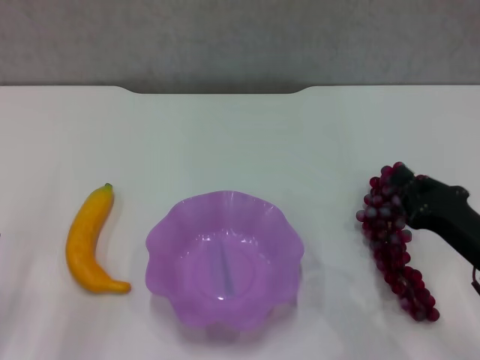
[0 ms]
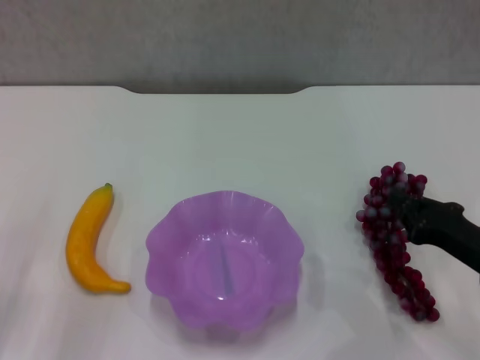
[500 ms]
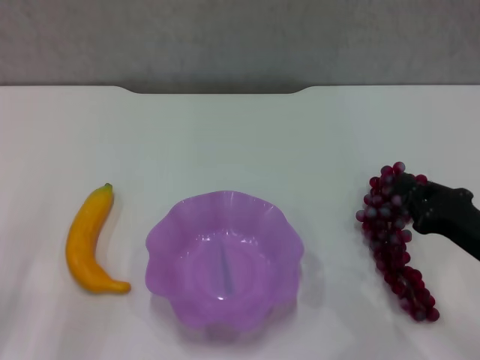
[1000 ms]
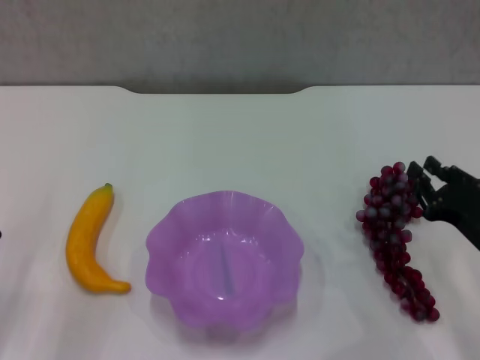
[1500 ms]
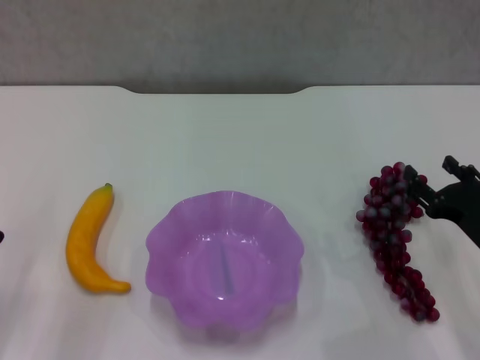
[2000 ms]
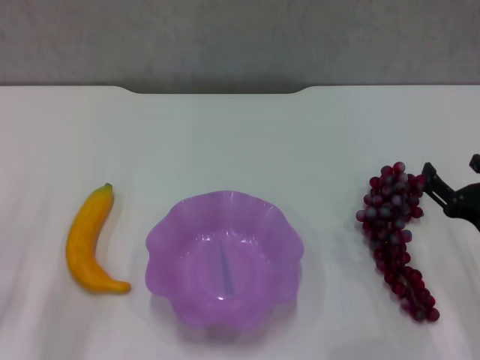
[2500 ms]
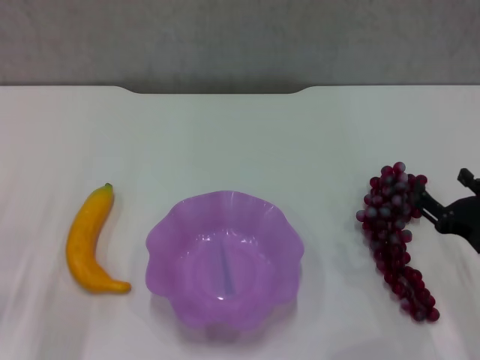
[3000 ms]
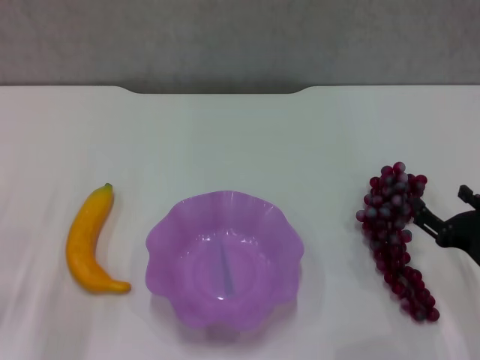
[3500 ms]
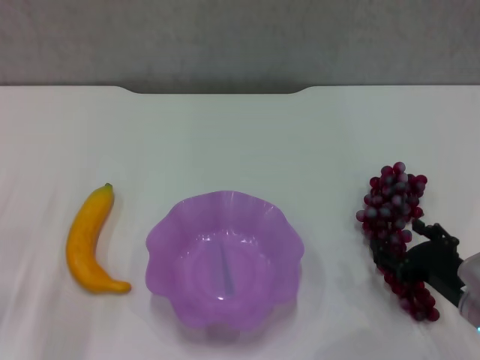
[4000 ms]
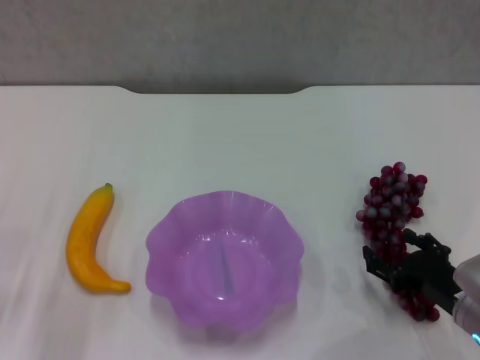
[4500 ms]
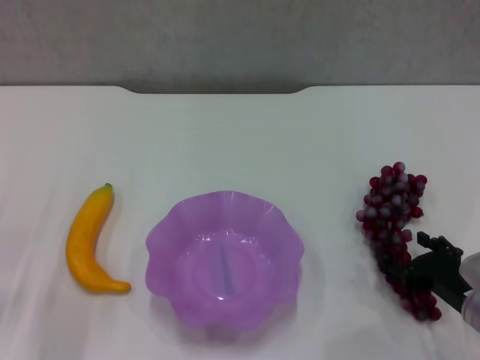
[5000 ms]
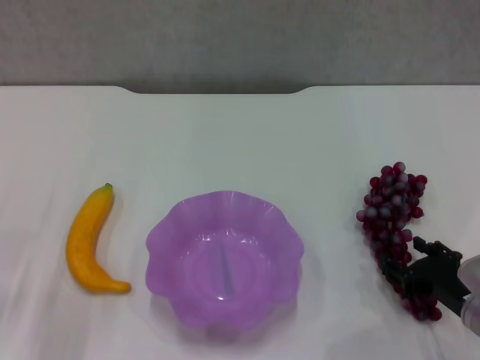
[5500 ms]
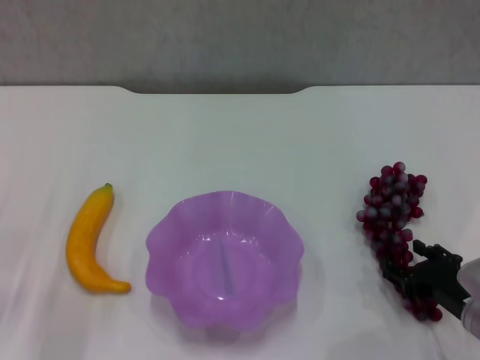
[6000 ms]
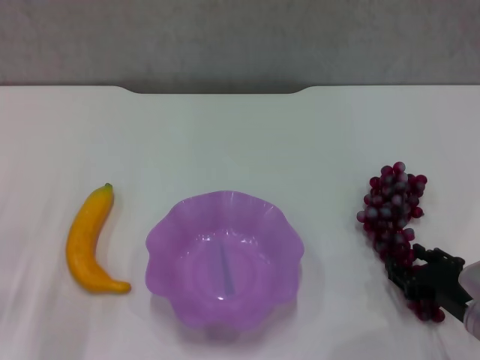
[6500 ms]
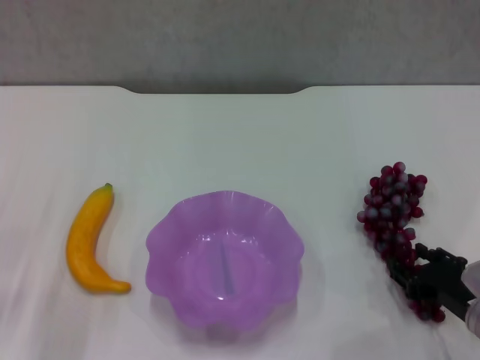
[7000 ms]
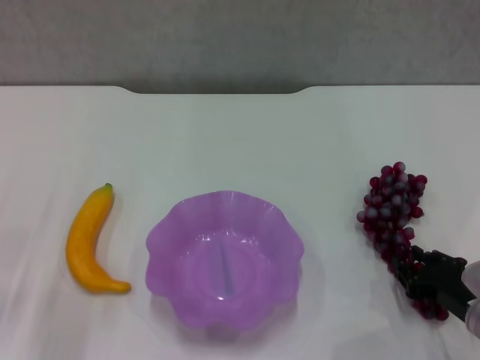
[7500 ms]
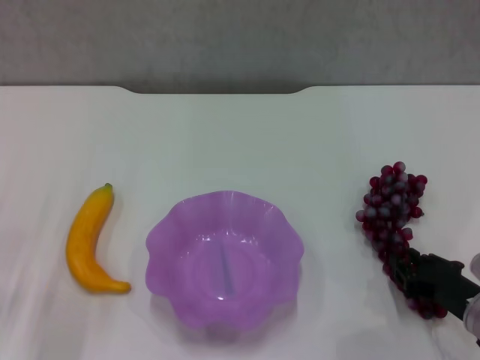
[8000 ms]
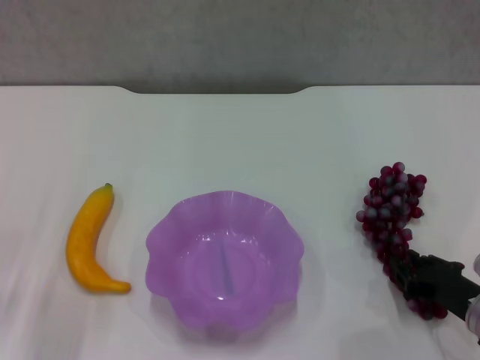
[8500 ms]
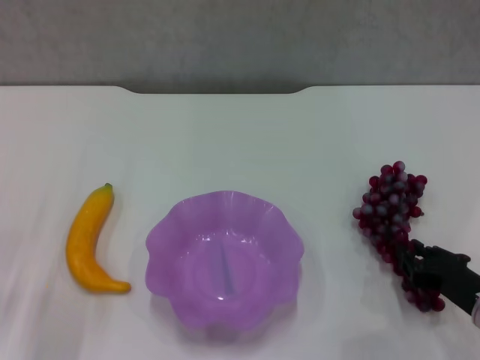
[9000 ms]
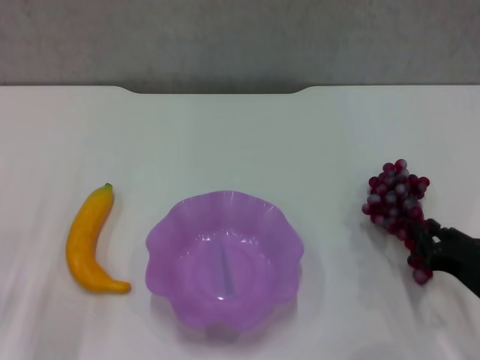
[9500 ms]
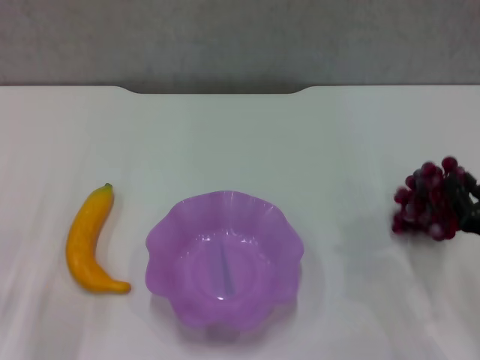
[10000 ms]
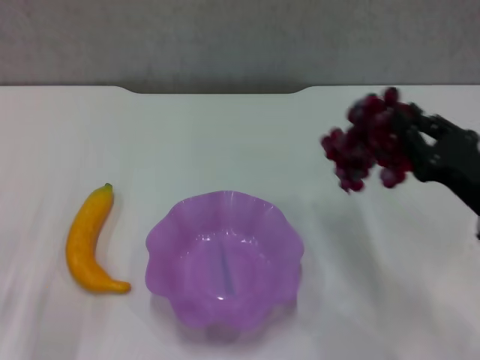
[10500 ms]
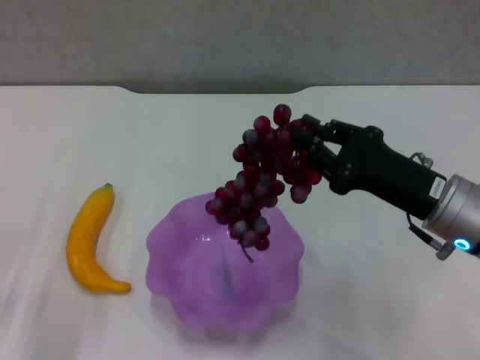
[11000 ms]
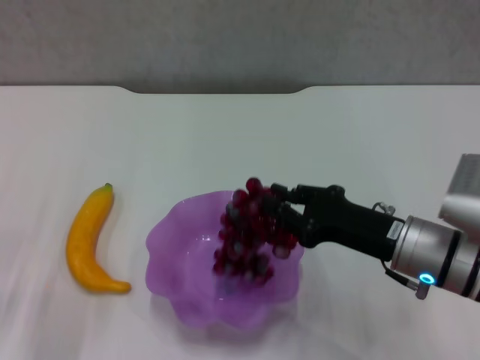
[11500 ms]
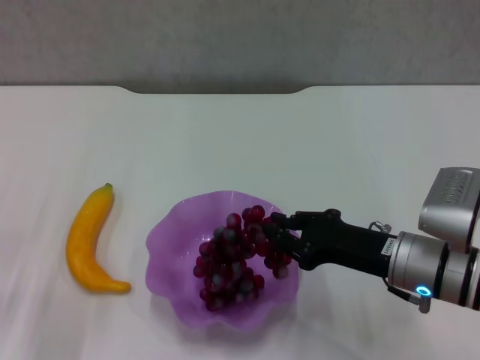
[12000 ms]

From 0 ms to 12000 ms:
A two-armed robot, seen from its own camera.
Step, from 0 ms to 8000 ms: Grasp the grape with right gripper.
From 0 ms to 2000 ms: The right gripper opens up.
From 2000 ms to 4000 ms: The right gripper opens up.
From 4000 ms to 6000 ms: There are only small adjustments of the grippers.
From 6000 ms to 8000 ms: The right gripper closes.
From 8000 ms to 10000 ms: The right gripper moves approximately 5 cm.
From 10000 ms to 12000 ms: The right gripper moves to the left, approximately 10 cm.

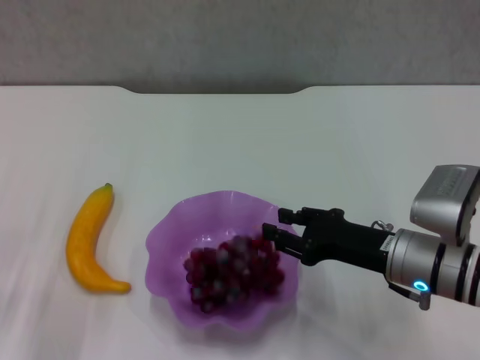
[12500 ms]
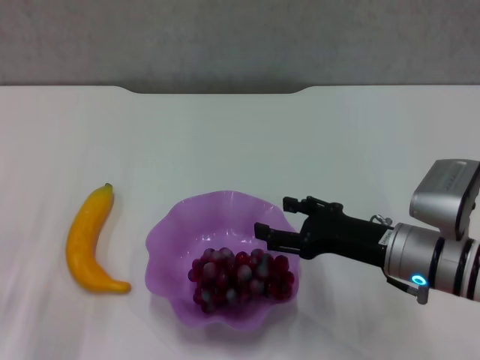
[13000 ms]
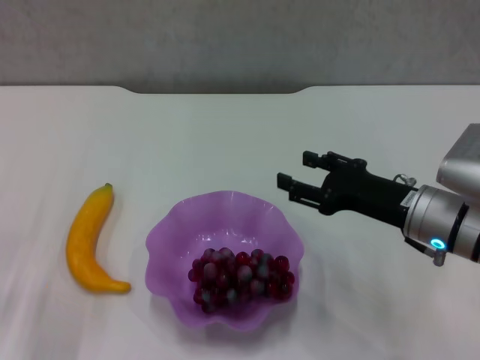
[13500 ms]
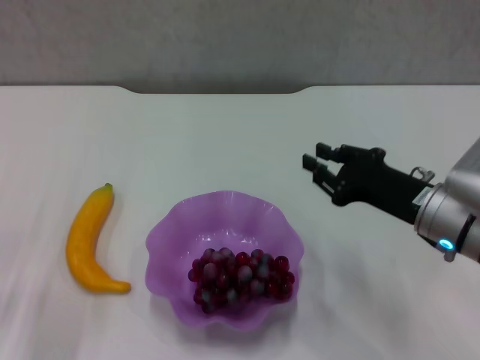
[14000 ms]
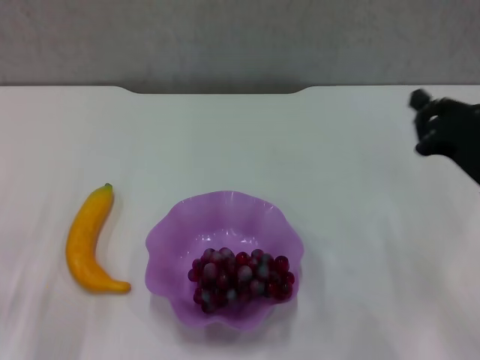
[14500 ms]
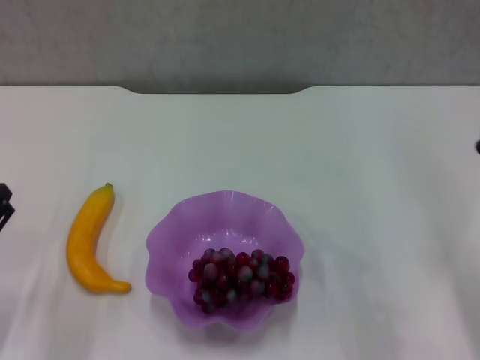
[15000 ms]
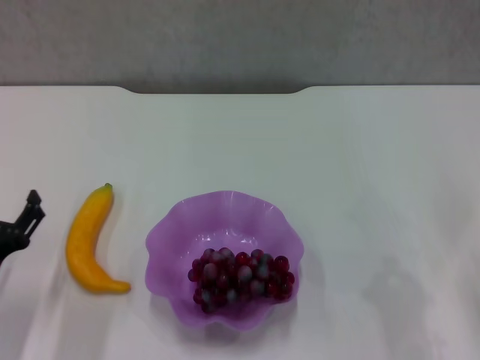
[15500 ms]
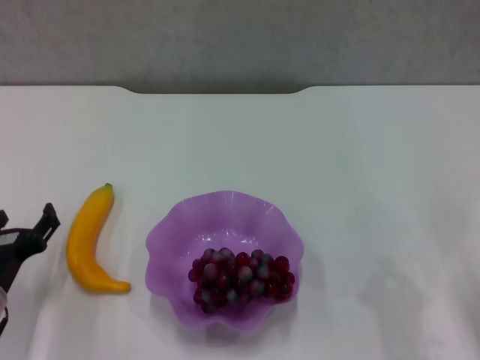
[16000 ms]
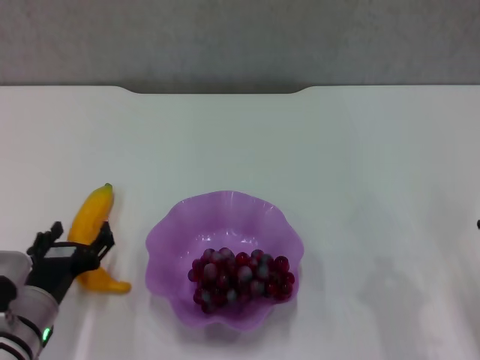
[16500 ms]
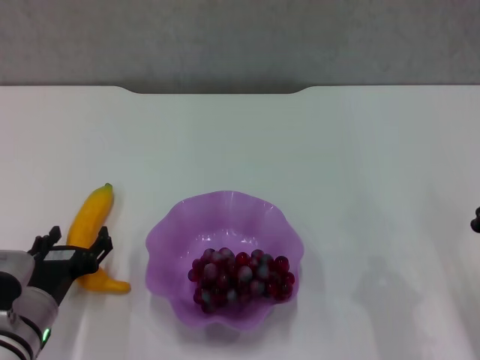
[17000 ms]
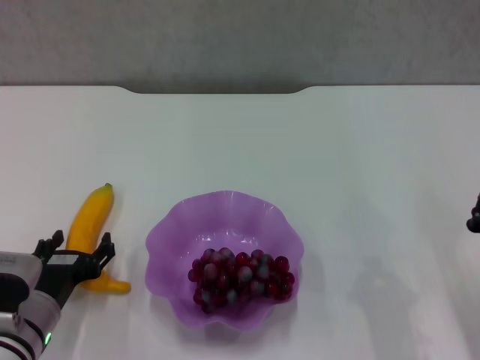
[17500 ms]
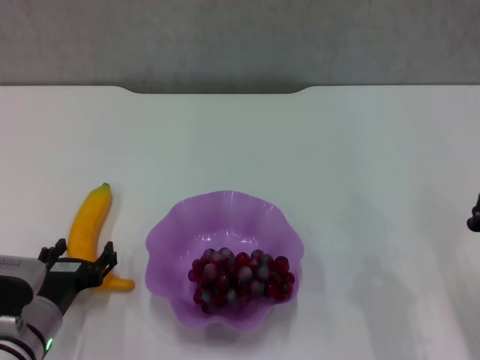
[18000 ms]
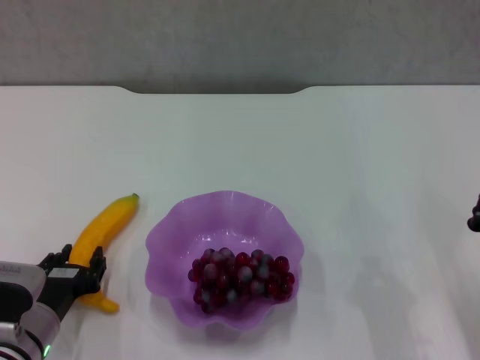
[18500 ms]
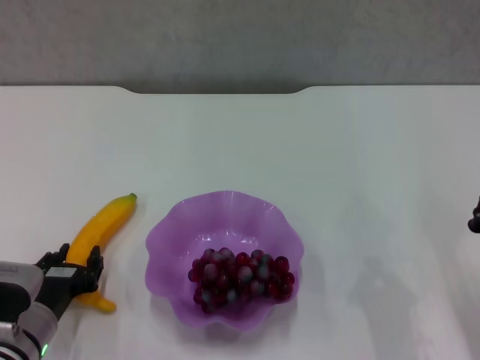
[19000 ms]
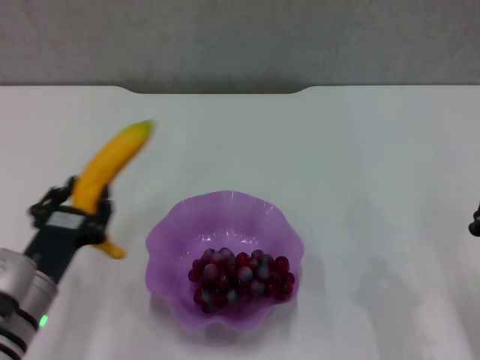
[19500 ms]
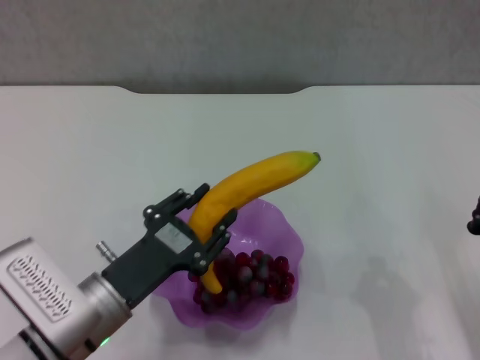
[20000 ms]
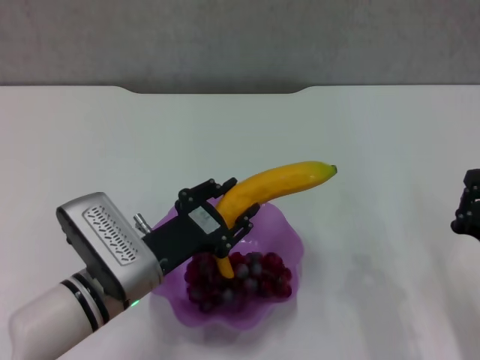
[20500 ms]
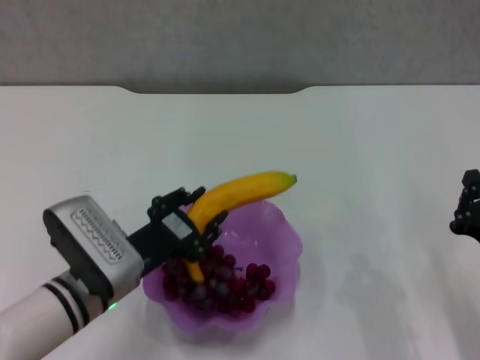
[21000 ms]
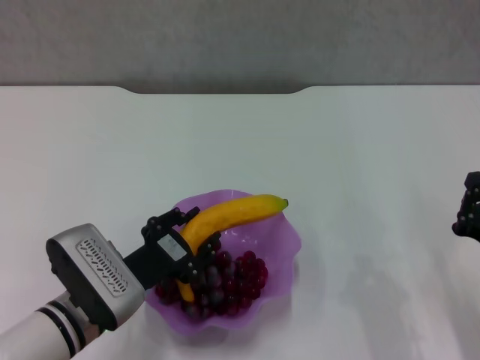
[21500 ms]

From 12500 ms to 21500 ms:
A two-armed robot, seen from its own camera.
Step, from 13000 ms to 18500 ms: Grasp the banana with left gripper.
From 12500 ms to 14500 ms: The right gripper shifts some 10 cm to the right and upward, and opens, then closes again.
From 14500 ms to 17000 ms: The right gripper is displaced backward and downward by roughly 10 cm. Meanwhile the left gripper shifts some 10 cm to the right.
From 17000 ms to 19500 ms: The left gripper closes up.
From 19500 ms to 21500 ms: The left gripper moves to the right, roughly 5 cm.

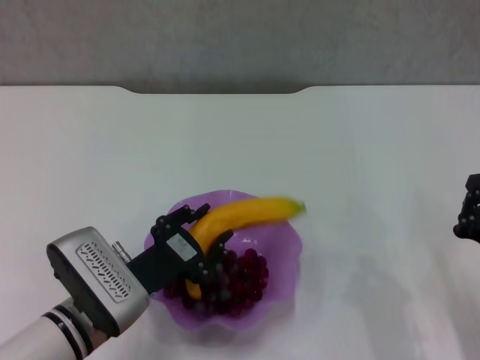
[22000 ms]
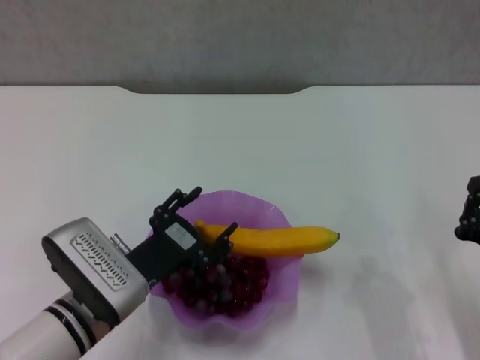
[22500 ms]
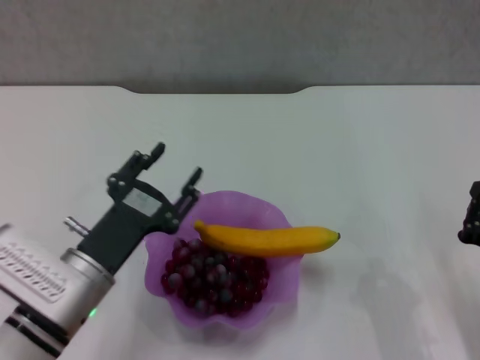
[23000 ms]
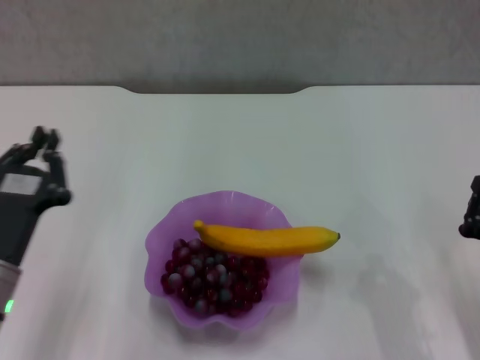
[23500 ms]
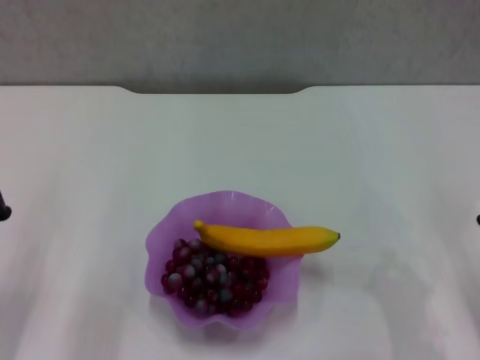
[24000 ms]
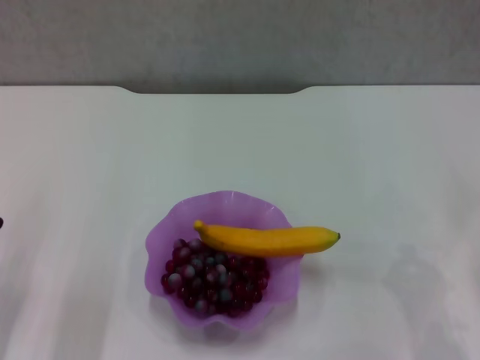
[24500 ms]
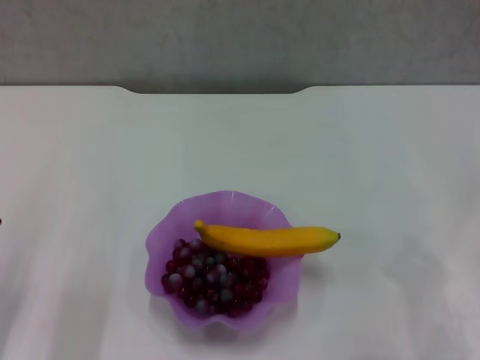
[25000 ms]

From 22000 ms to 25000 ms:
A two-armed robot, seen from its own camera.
From 22000 ms to 23500 ms: The left gripper heads to the left, covering roughly 5 cm, and closes its fingers.
From 23500 ms to 25000 ms: The right gripper moves to the right, roughly 5 cm. Meanwhile the left gripper heads to the left, covering some 5 cm.
